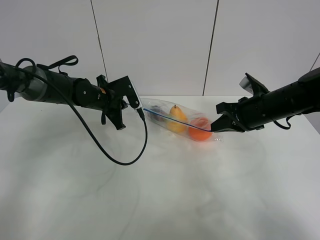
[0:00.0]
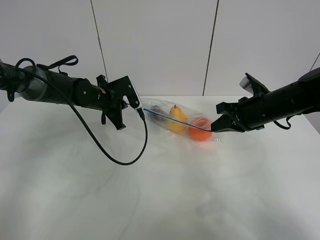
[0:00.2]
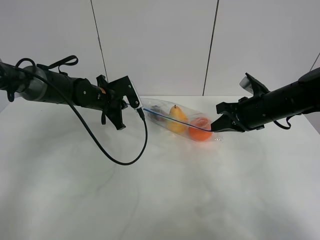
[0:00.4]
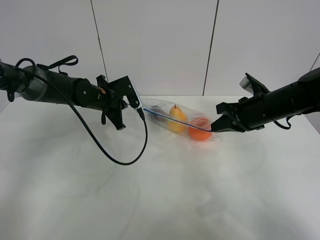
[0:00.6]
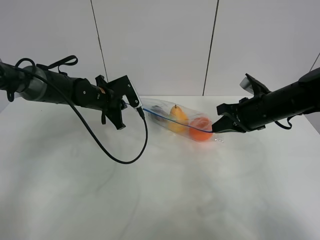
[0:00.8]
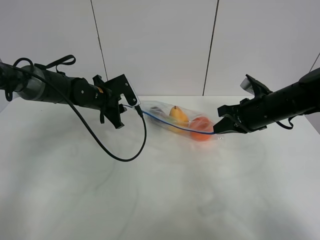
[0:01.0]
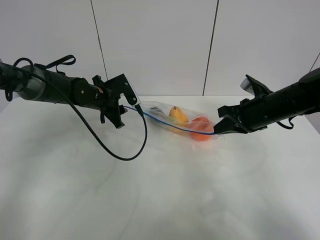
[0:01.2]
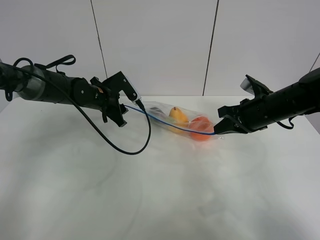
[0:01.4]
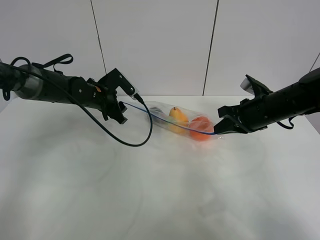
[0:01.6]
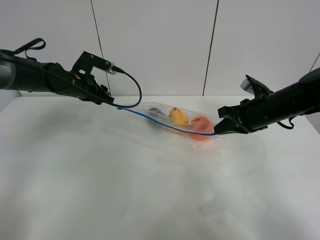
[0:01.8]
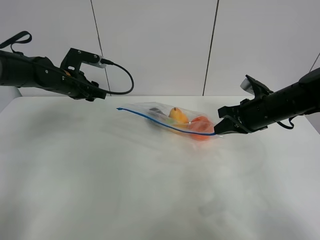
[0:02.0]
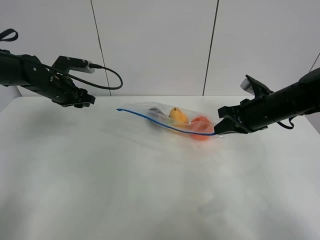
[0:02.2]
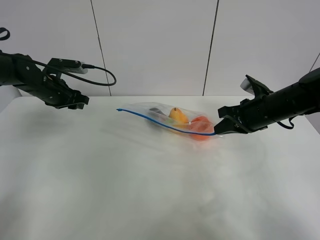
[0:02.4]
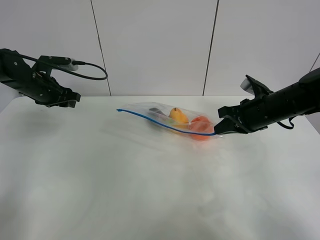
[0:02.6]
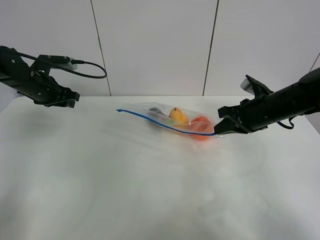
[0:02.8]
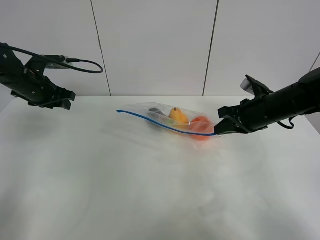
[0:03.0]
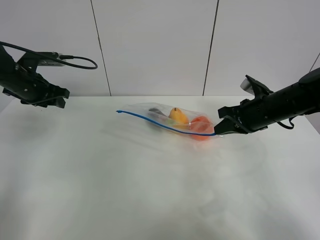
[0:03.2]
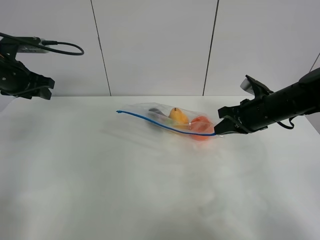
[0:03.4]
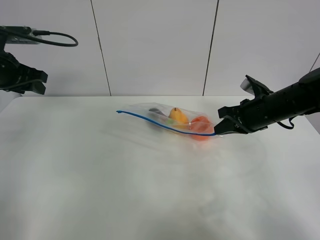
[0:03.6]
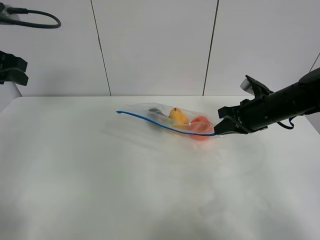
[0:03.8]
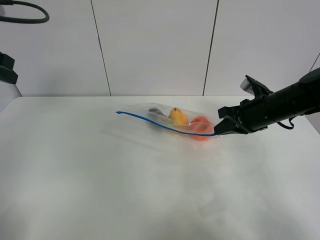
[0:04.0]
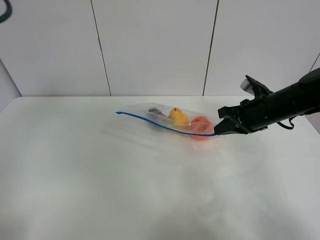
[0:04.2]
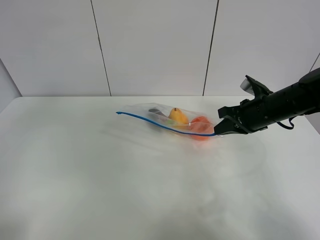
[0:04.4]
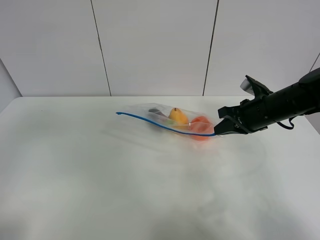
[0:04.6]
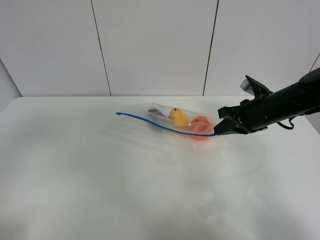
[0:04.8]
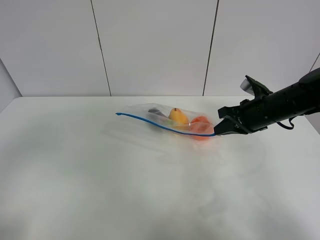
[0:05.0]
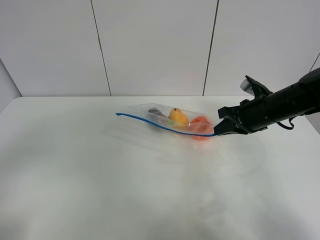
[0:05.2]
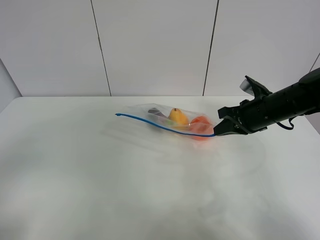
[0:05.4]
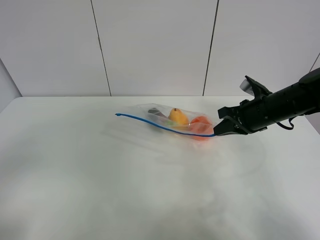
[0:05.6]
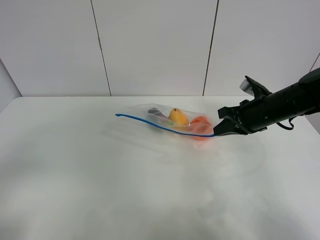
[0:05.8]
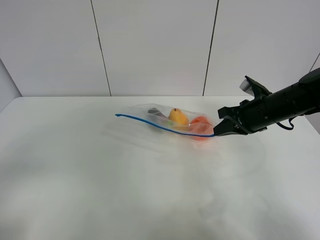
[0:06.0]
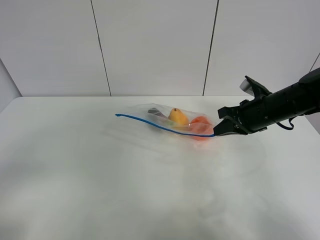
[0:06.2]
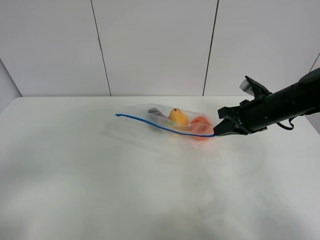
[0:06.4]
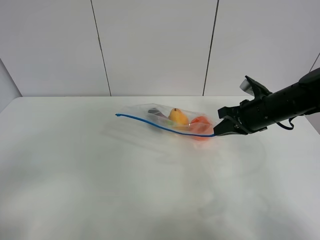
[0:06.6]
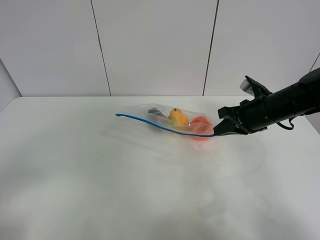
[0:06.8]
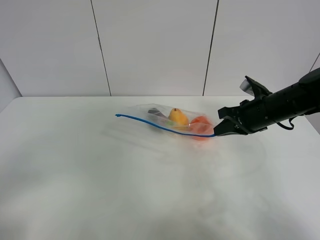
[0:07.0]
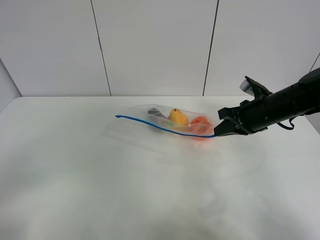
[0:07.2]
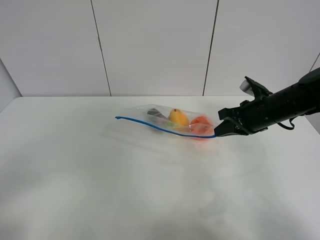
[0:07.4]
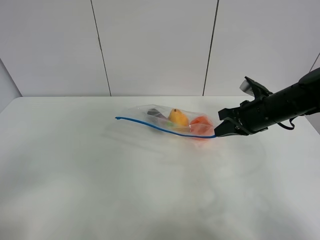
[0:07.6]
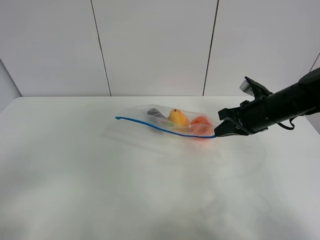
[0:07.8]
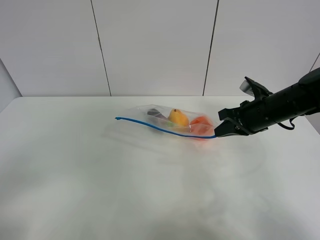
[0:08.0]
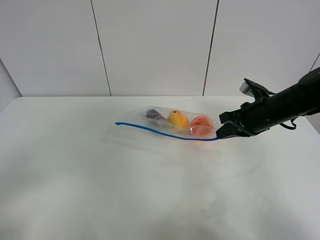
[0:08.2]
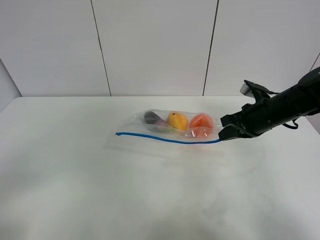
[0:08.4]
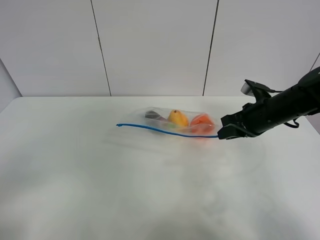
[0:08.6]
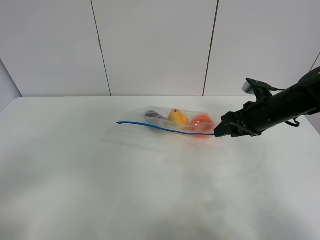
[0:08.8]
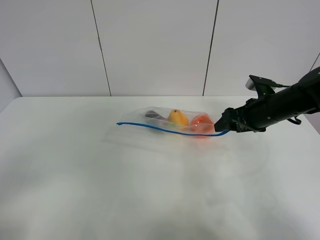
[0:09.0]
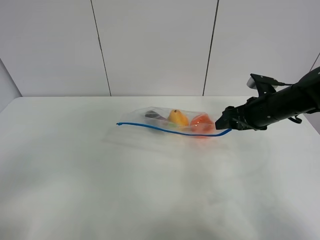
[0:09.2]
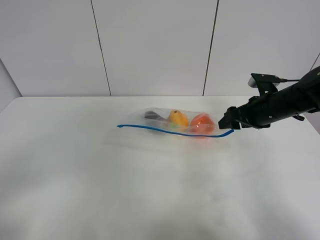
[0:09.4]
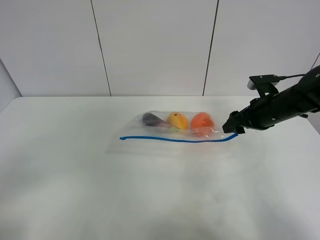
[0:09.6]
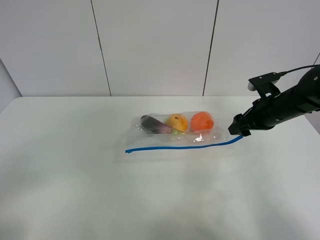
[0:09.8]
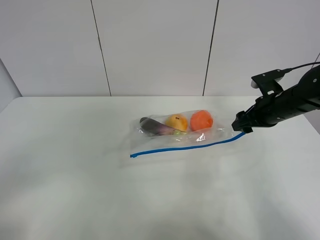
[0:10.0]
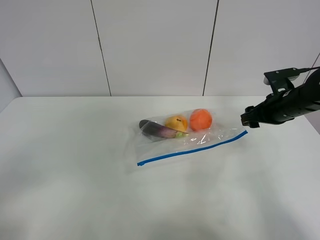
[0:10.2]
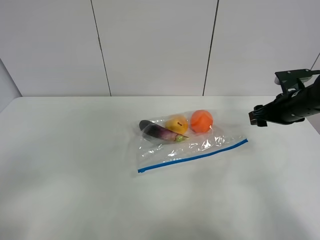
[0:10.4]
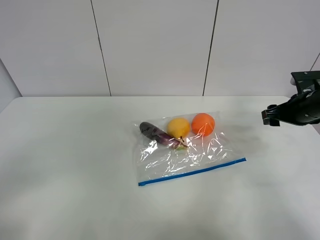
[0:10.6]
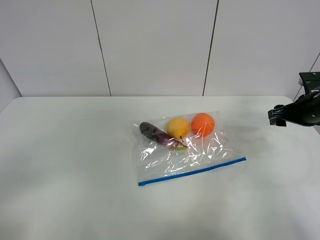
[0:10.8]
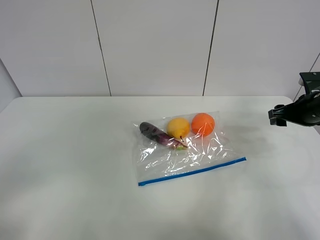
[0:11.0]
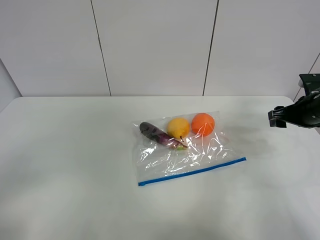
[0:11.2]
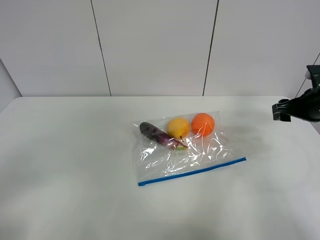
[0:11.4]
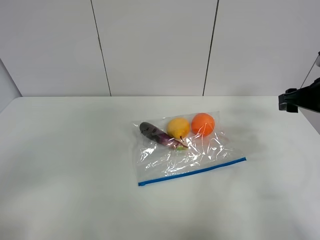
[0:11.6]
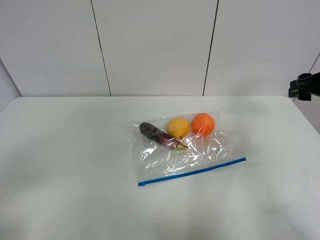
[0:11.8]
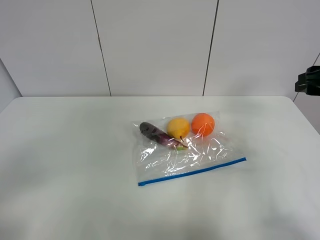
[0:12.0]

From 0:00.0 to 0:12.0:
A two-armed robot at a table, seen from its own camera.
From 0:00.0 to 0:01.6: The left gripper opens up.
From 0:01.6 to 0:03.0: The left gripper moves to the left and upward, some 15 cm.
From 0:03.0 to 0:04.4: The left gripper travels backward and upward by approximately 30 cm.
From 0:06.0 to 0:07.6: The grippers move only a little.
From 0:07.6 to 0:09.0: The right gripper opens up.
From 0:09.0 to 0:10.4: The right gripper travels to the right by approximately 5 cm.
From 0:10.4 to 0:12.0: The right gripper heads upward and backward, covering some 15 cm.

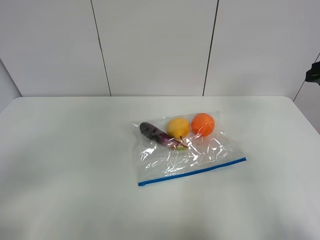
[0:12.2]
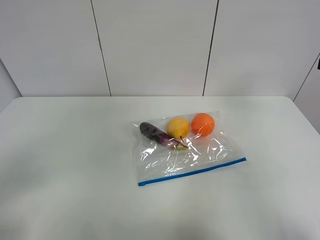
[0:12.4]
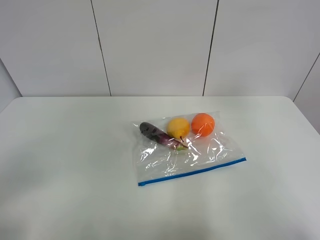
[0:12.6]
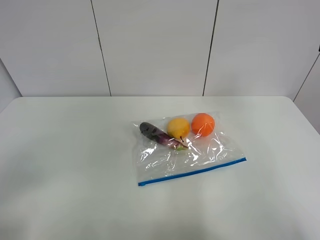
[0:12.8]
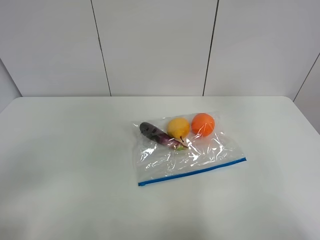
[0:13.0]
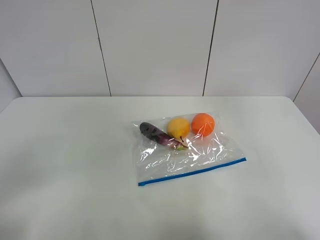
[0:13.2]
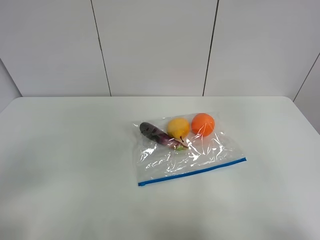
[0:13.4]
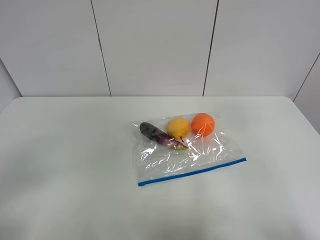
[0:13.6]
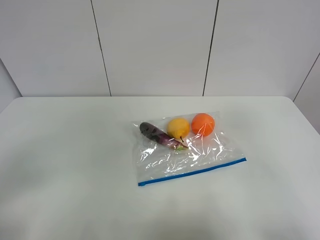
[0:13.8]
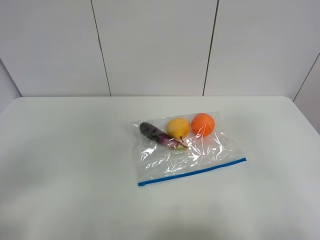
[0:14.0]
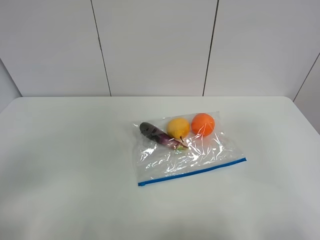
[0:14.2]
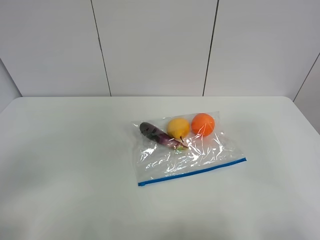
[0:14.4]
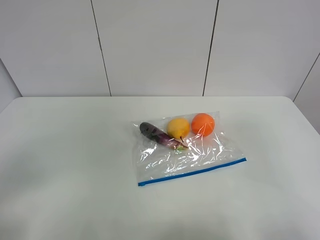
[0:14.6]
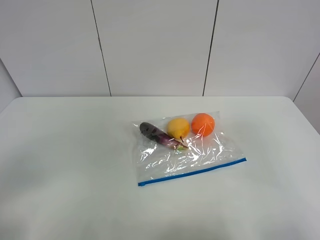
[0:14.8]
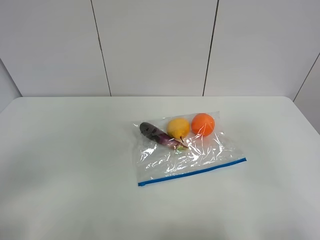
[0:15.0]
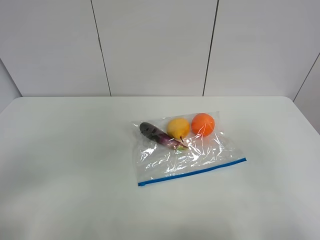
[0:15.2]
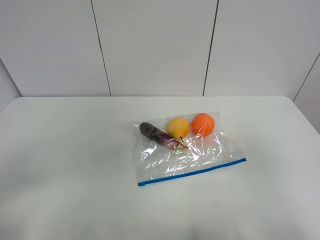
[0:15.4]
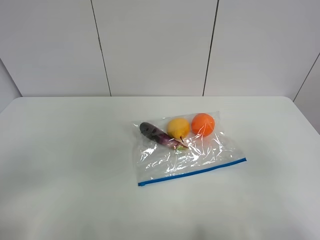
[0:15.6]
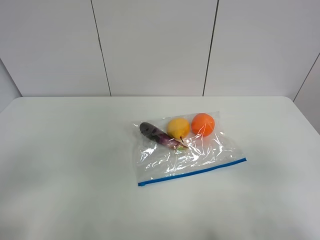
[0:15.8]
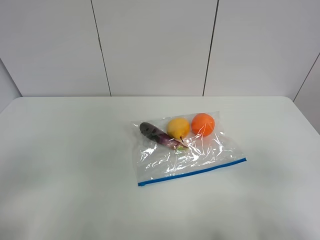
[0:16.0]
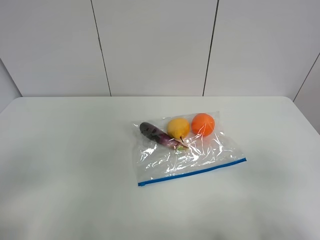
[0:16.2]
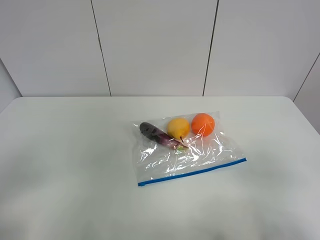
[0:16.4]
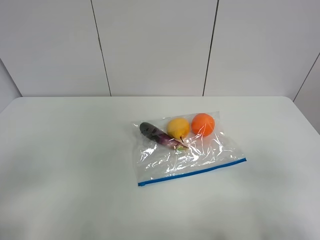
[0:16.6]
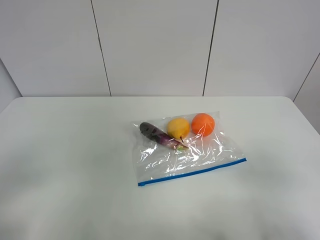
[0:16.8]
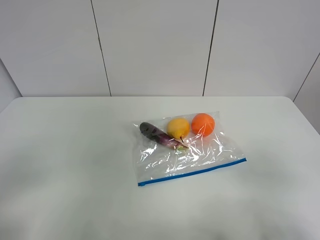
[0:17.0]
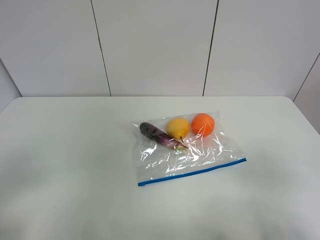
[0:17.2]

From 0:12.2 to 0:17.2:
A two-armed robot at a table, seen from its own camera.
From 0:12.2 to 0:13.8: The right gripper heads backward, covering approximately 20 cm.
From 0:13.8 to 0:15.6: The right gripper shifts approximately 10 cm downward.

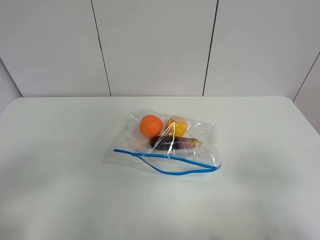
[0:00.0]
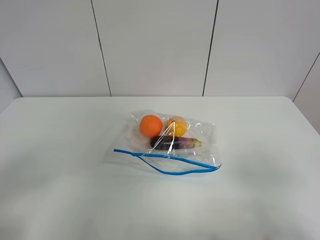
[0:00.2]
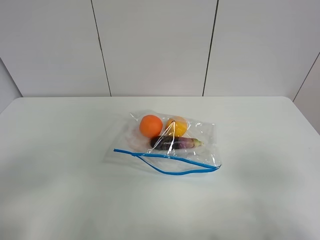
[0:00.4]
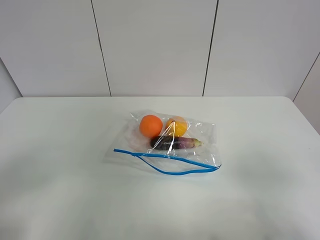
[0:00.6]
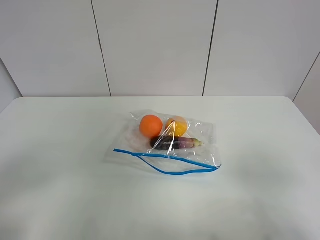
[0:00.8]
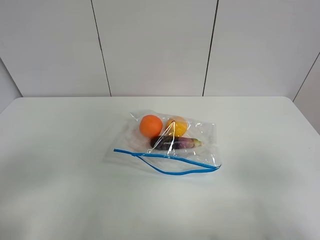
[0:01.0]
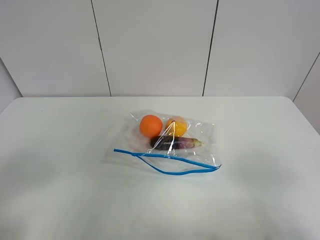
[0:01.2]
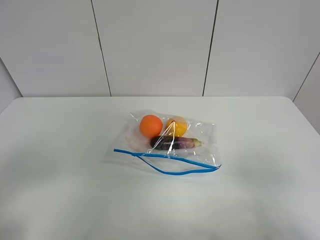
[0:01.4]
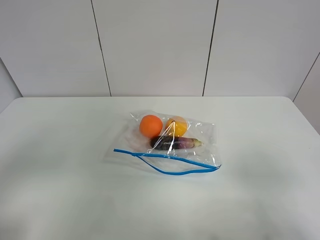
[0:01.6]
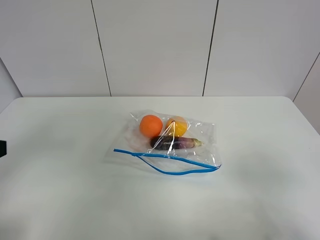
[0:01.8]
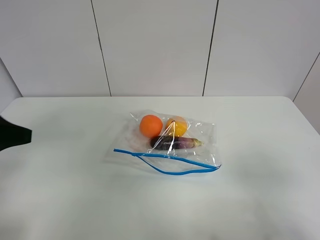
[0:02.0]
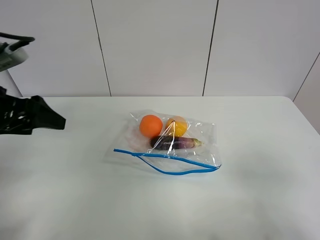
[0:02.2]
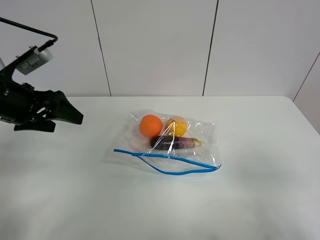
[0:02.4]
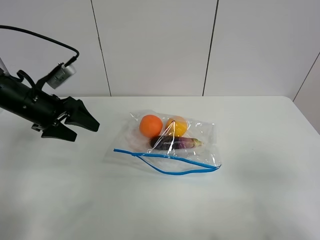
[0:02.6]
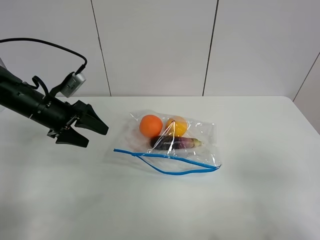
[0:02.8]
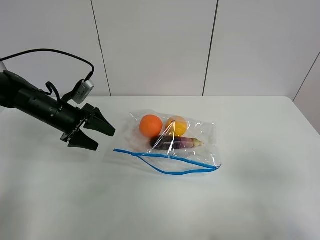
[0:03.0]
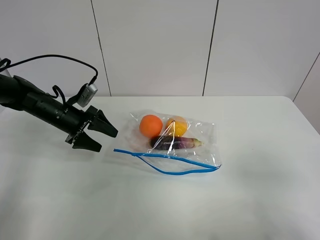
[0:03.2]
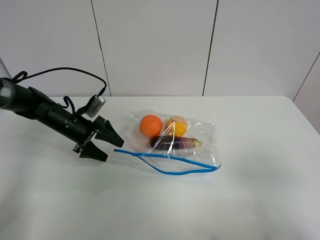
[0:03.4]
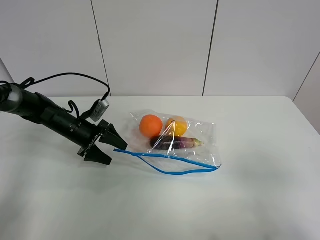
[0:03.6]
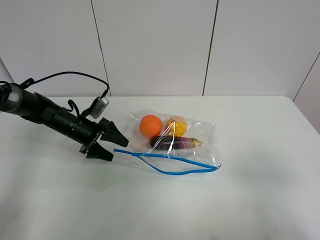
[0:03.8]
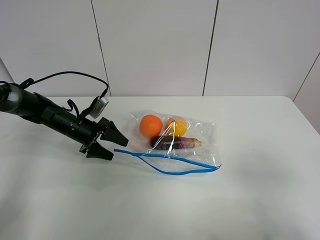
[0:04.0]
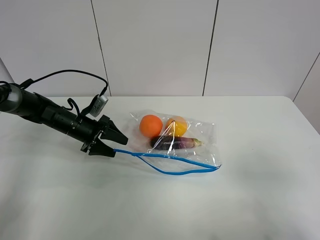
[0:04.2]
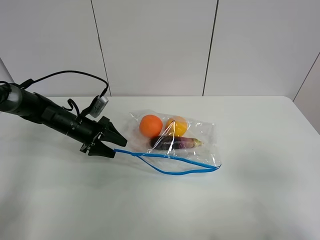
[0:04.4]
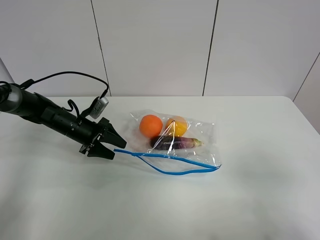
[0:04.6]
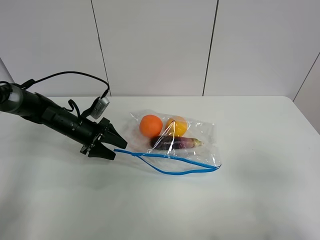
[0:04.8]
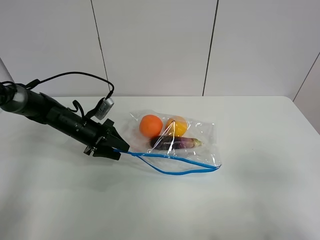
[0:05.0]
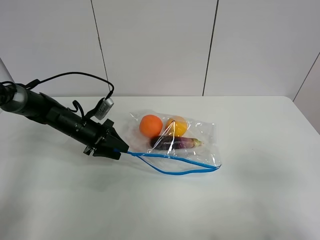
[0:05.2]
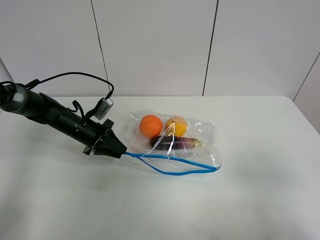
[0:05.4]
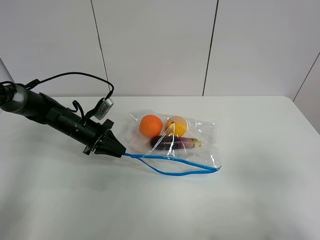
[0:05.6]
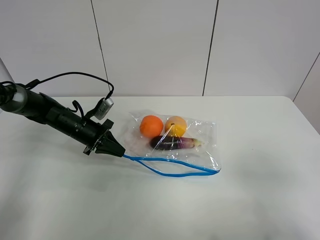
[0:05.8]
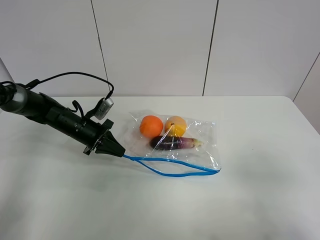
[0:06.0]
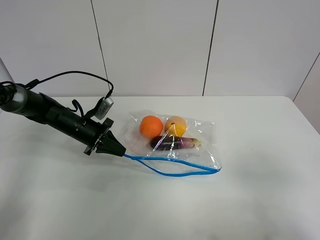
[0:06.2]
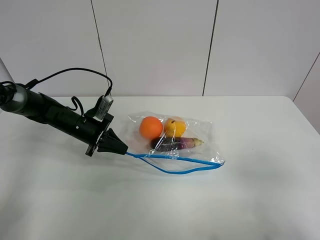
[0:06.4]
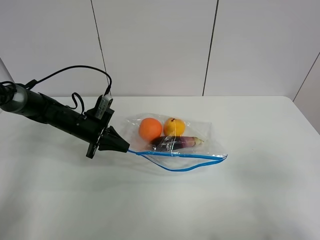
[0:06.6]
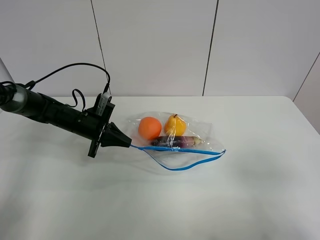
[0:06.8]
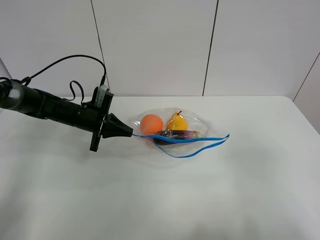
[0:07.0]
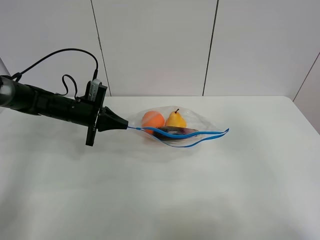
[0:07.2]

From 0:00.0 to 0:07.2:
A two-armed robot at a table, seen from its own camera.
Step, from 0:00.0 to 0:05.6: Grasp the fruit bag with left gripper.
From 0:01.4 to 0:02.8: The left gripper moves forward, approximately 35 cm.
From 0:02.8 to 0:04.4: The left gripper travels downward by roughly 10 cm.
From 0:04.4 to 0:05.8: The left gripper closes up.
From 0:05.8 to 0:07.2: The right gripper moves forward and upward, roughly 10 cm.
